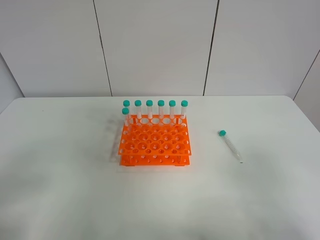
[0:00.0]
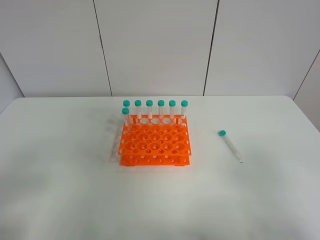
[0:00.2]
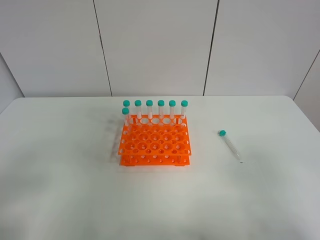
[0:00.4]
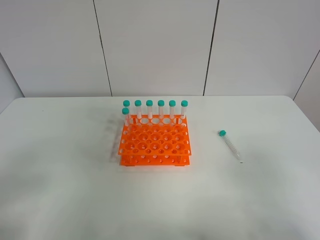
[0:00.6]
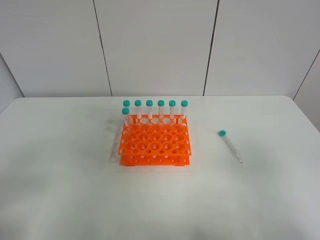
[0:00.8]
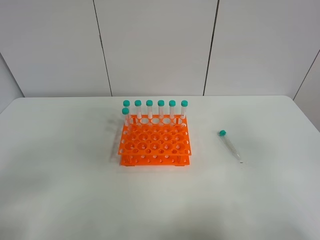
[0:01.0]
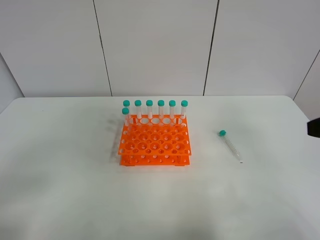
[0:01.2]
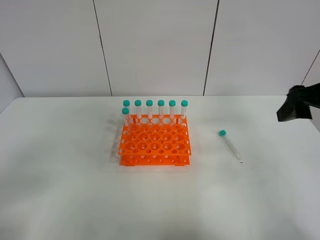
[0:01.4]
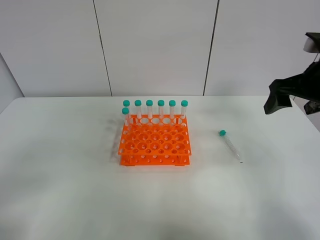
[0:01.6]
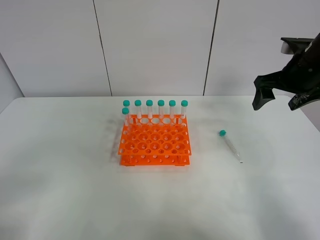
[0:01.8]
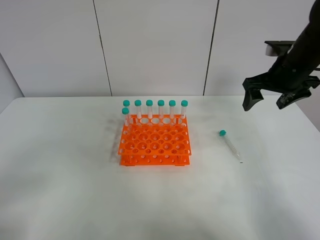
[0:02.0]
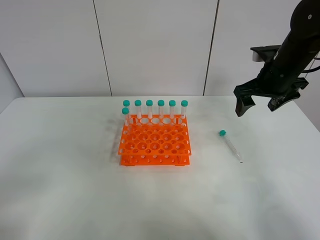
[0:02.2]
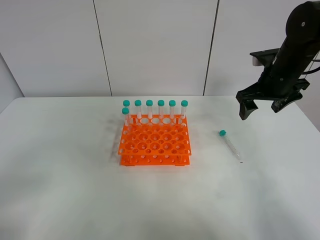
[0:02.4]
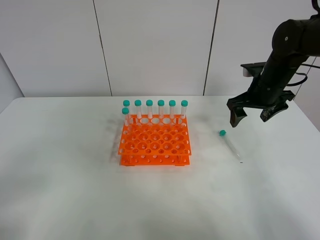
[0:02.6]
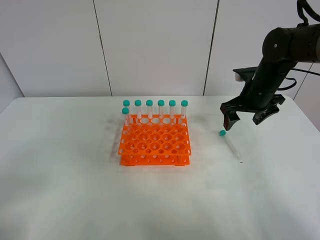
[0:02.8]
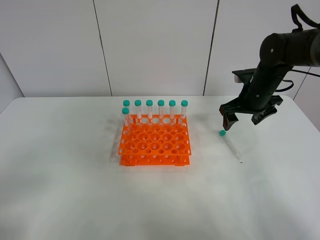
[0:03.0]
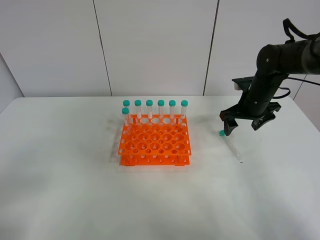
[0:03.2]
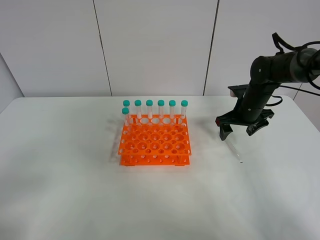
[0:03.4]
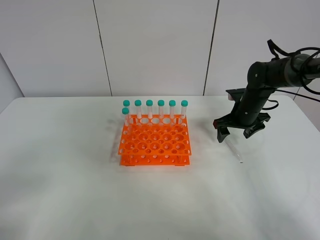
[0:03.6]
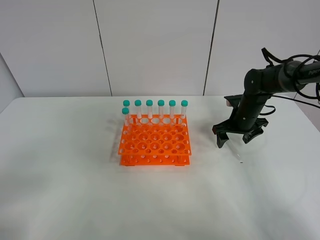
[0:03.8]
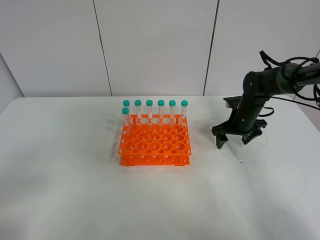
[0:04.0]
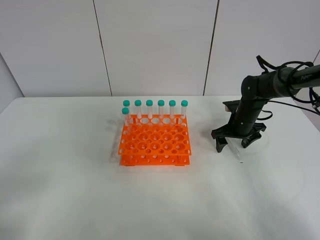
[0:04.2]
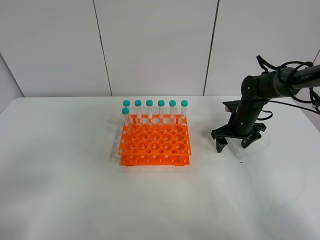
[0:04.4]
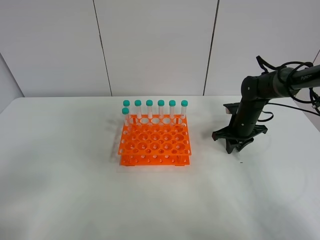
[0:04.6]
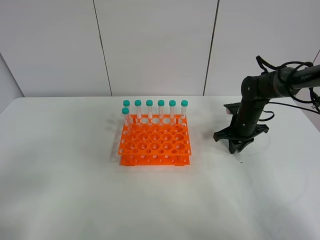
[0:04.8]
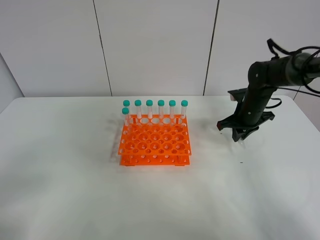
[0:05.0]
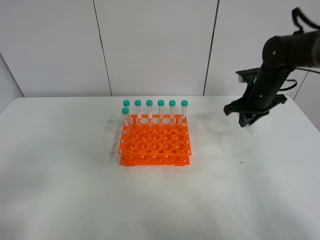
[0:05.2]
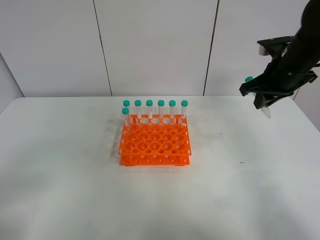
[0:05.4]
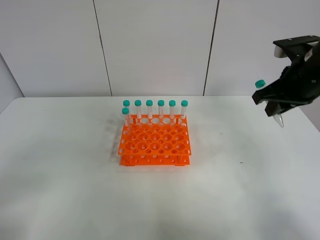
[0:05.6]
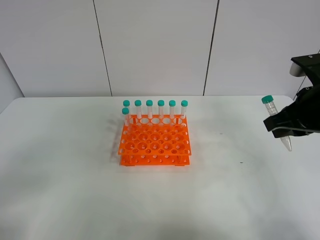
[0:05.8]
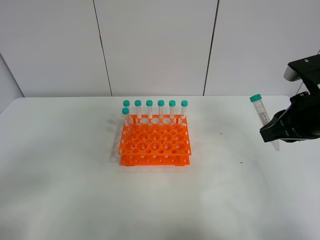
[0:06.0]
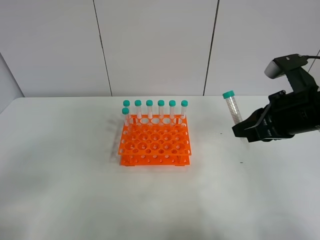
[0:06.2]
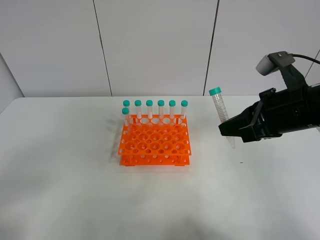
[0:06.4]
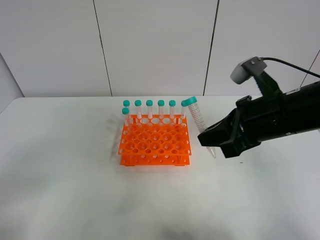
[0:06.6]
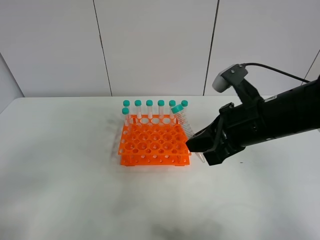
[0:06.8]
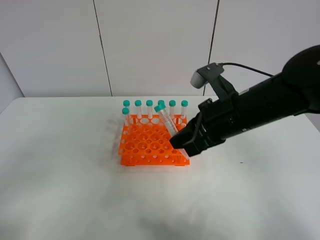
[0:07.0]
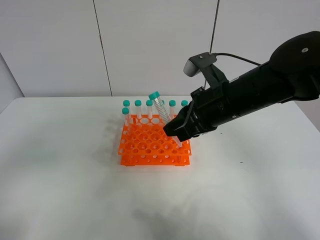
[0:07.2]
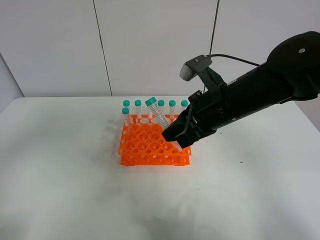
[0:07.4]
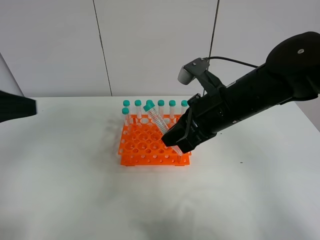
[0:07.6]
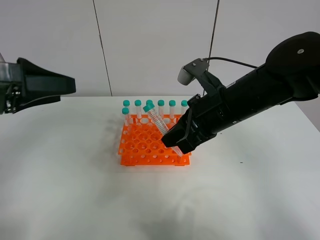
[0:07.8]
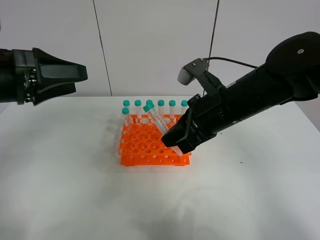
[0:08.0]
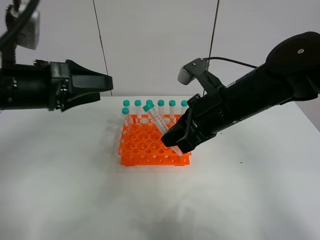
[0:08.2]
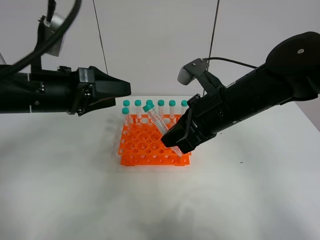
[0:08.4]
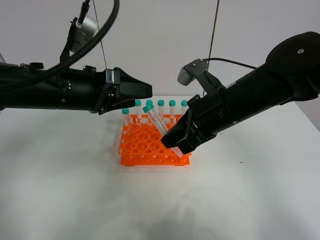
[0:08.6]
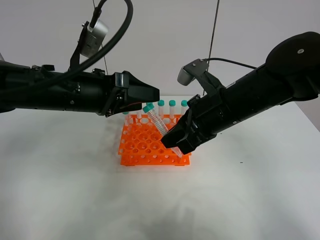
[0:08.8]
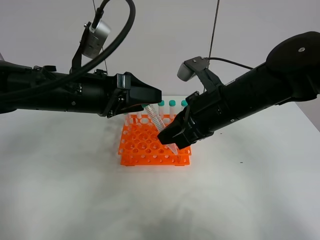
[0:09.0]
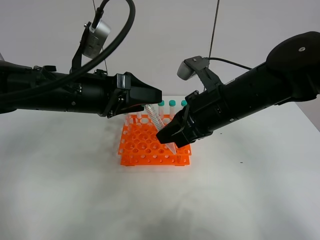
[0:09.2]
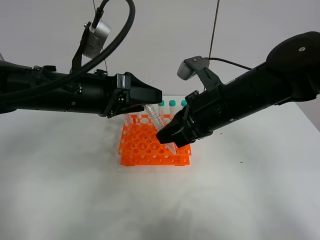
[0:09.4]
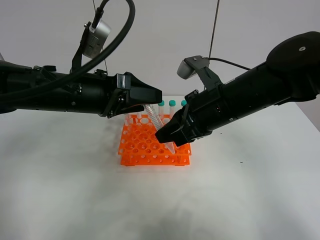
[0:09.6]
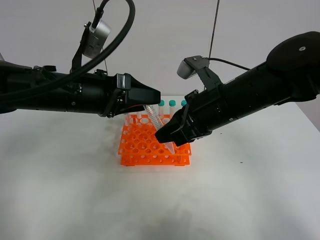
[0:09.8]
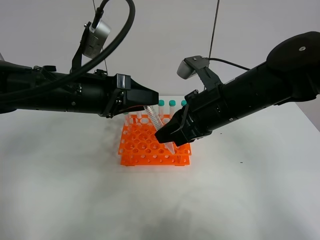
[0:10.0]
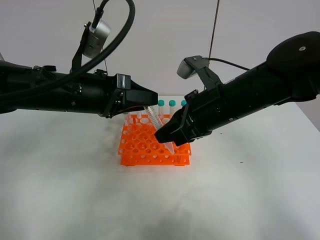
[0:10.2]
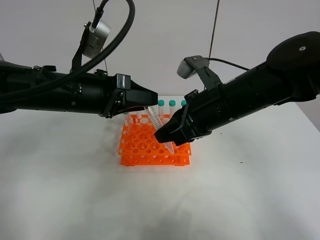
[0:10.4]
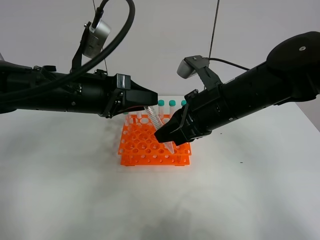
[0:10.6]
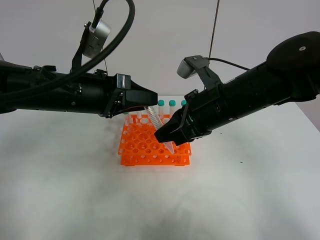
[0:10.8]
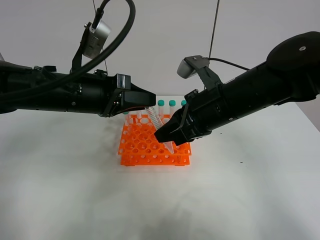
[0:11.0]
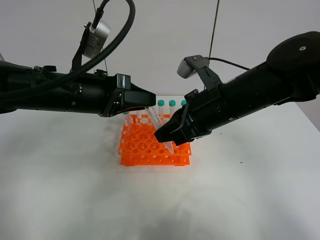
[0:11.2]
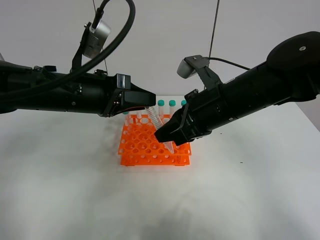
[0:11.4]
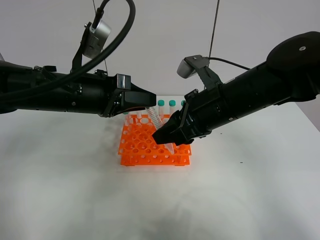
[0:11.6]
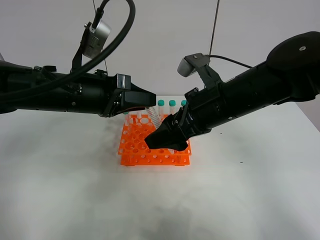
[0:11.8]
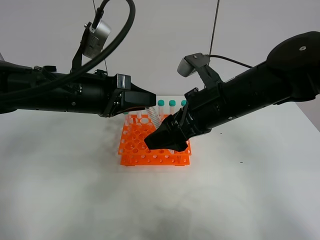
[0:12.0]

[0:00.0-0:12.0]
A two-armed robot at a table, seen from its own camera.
Task of the whole recording: Put the test tube on the table back onto the test tube rack.
Step, 0:00.0 to 0:04.8: Pick up the test tube with the right gripper.
Step, 0:05.0 to 0:11.8: Move the test tube from the right gripper to the left gripper.
0:00.0 to 0:01.6: The right gripper heads forward, covering roughly 30 cm.
0:01.6 to 0:03.0: The right gripper is displaced downward and forward by about 15 cm.
0:03.0 to 0:04.4: The right gripper moves downward, roughly 10 cm.
0:04.4 to 0:06.0: The right gripper shifts about 25 cm backward and upward, and closes up.
0:06.0 to 0:07.6: The left gripper heads forward and upward, covering some 15 cm. Meanwhile the right gripper heads to the left, covering roughly 15 cm.
0:07.6 to 0:09.0: The left gripper goes roughly 20 cm to the right, forward and downward.
0:09.0 to 0:10.4: The left gripper closes its fingers.
0:10.4 to 0:12.0: The right gripper opens.

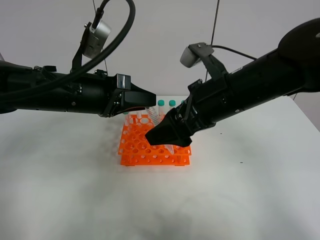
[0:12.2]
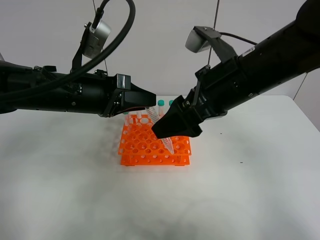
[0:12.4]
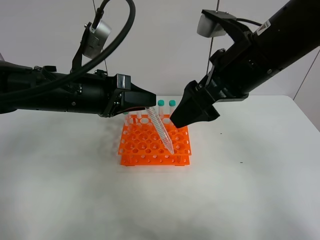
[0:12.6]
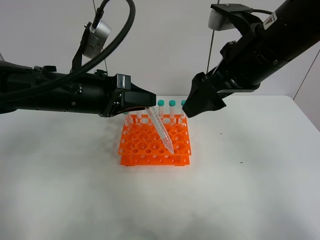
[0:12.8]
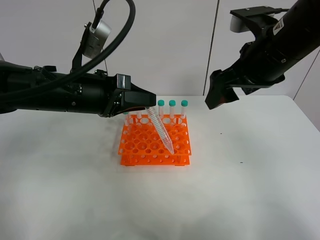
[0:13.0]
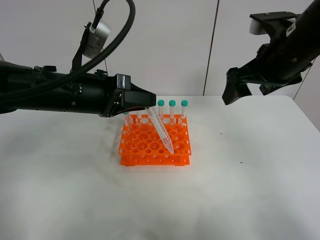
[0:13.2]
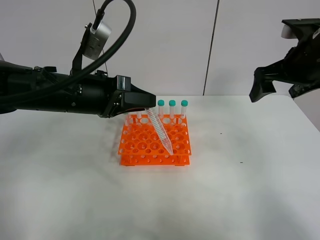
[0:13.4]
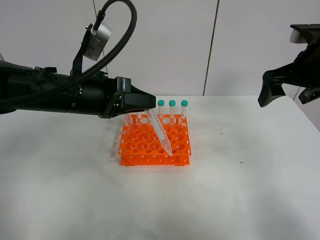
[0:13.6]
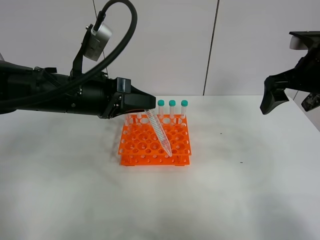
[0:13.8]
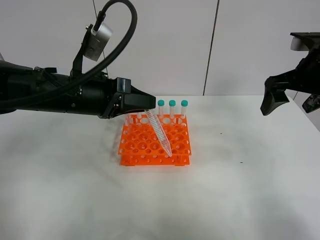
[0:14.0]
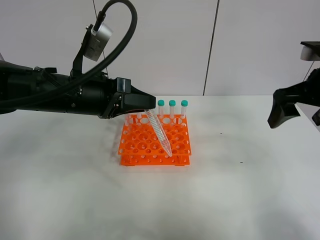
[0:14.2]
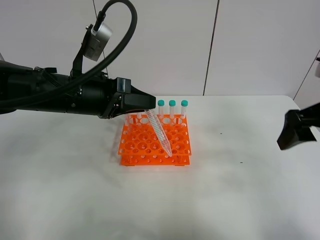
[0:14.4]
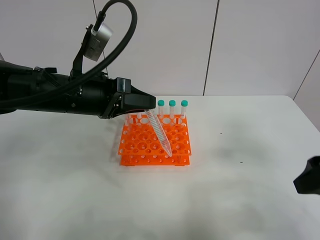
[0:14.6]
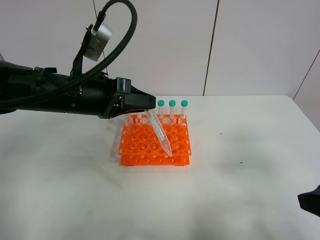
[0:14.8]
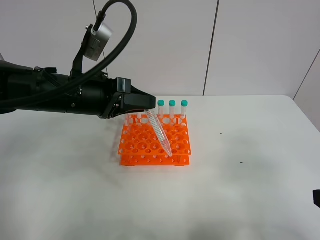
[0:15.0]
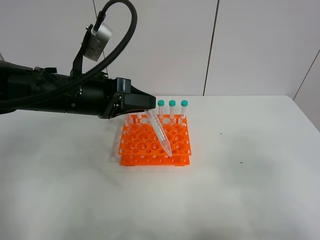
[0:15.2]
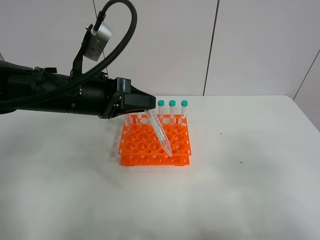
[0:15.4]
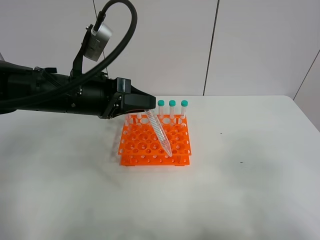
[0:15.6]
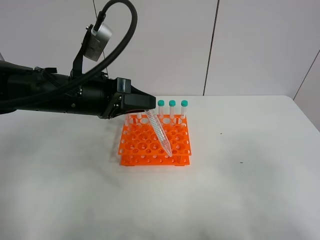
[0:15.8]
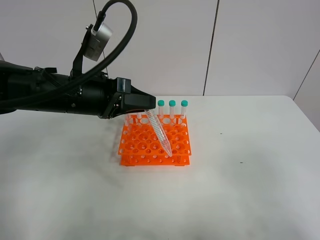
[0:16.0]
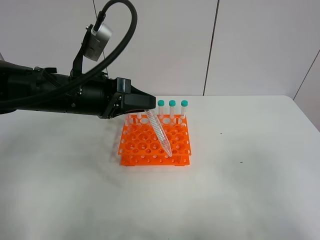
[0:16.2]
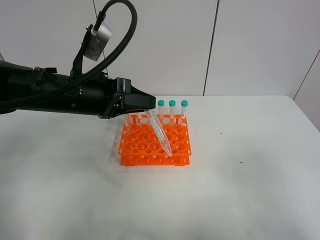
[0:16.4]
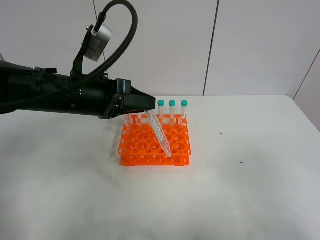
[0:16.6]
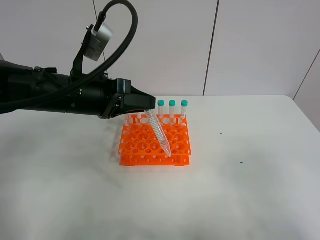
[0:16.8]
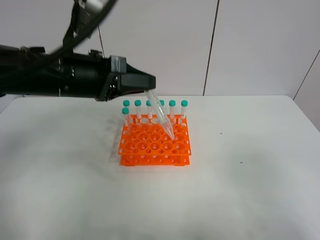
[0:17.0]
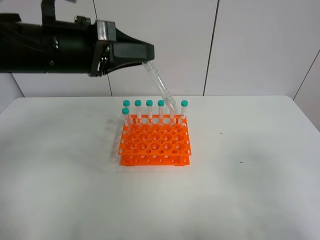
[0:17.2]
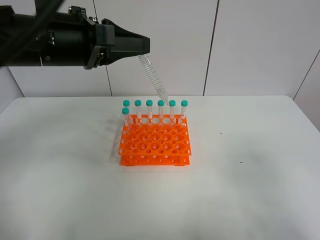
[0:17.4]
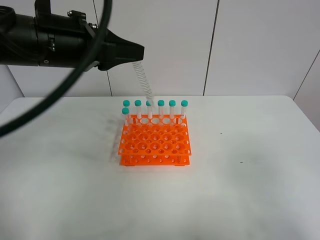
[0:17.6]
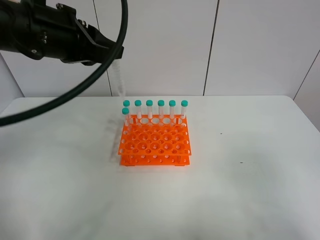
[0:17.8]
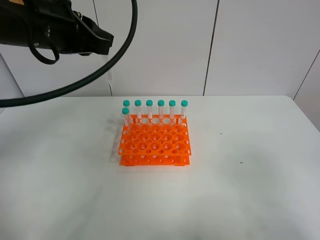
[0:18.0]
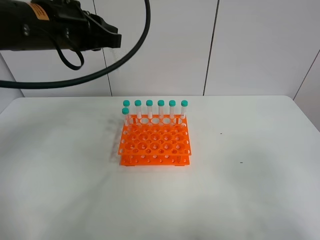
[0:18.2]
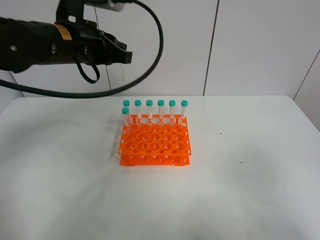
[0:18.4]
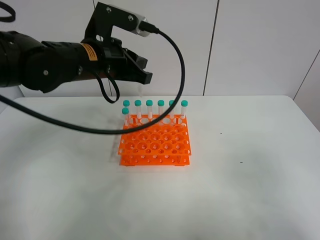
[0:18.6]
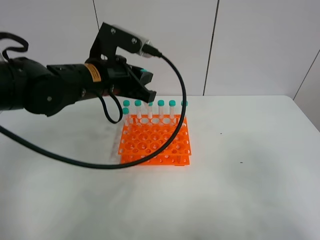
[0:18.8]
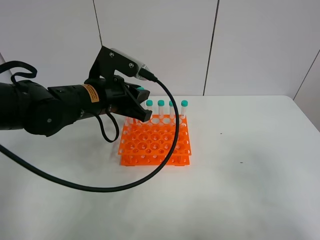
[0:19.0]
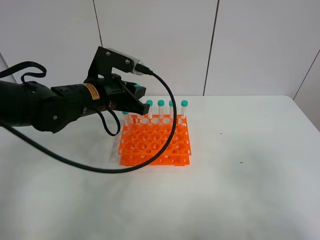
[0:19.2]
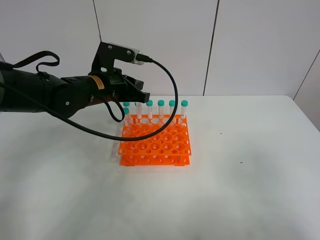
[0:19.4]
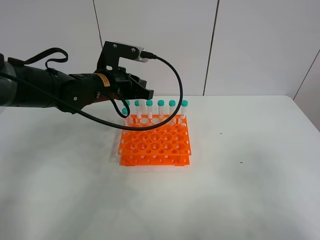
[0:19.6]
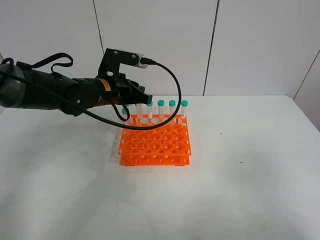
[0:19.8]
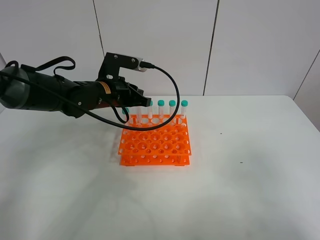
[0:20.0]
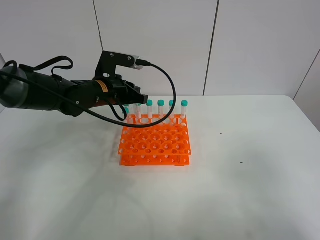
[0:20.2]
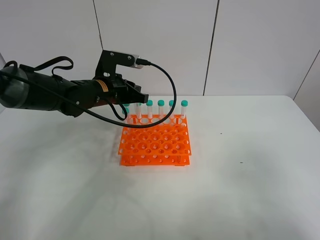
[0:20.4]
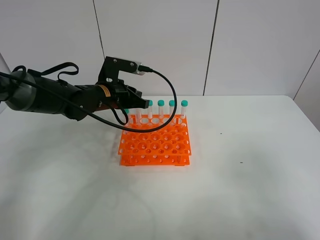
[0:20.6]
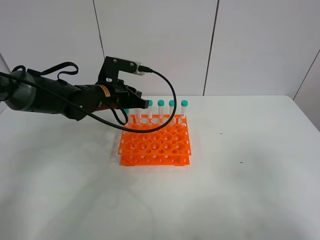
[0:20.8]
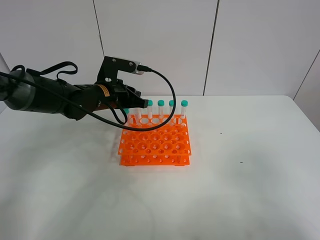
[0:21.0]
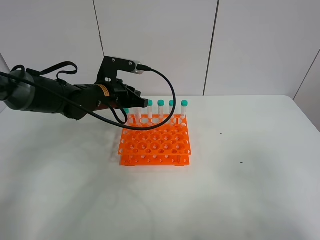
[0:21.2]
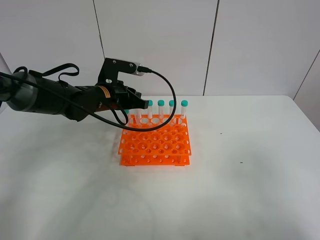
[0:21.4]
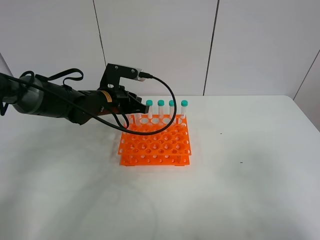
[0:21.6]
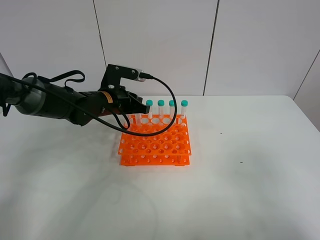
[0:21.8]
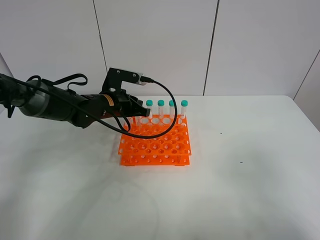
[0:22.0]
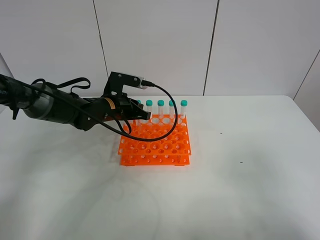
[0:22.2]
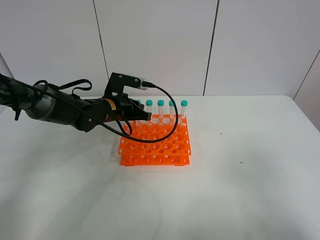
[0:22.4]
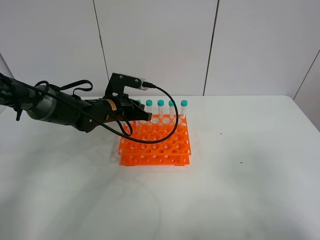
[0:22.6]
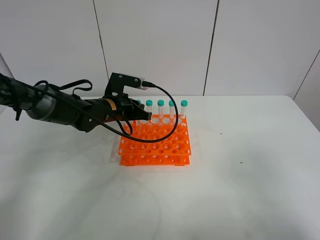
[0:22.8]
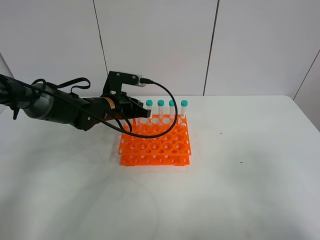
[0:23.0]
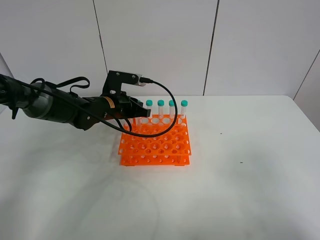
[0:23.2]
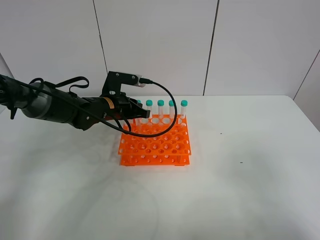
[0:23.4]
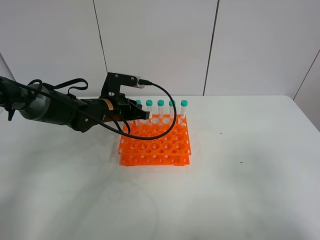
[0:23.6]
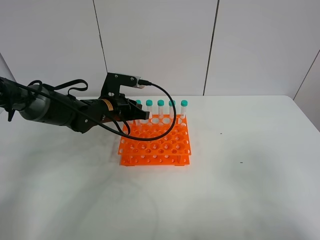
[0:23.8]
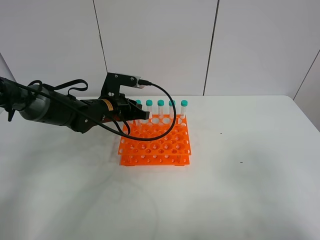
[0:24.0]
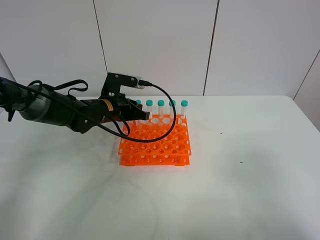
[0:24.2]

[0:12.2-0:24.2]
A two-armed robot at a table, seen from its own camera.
Task of the whole recording: Put the test tube on the table back onto the test tube rack.
0:12.2 to 0:13.8: The right gripper travels to the right by some 15 cm.
0:13.8 to 0:15.2: The right gripper moves backward, approximately 25 cm.
0:15.2 to 0:16.6: The grippers stay close to where they were, moving slightly.
0:16.6 to 0:18.2: The left gripper goes roughly 10 cm upward.
0:18.2 to 0:19.8: The left gripper travels downward and forward by some 15 cm.
0:19.8 to 0:21.2: The grippers move only a little.
0:21.2 to 0:22.6: The grippers stay close to where they were, moving slightly.
0:22.6 to 0:24.2: The two grippers keep their place.
